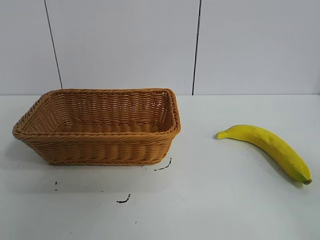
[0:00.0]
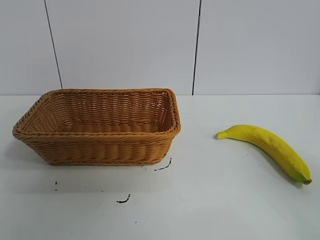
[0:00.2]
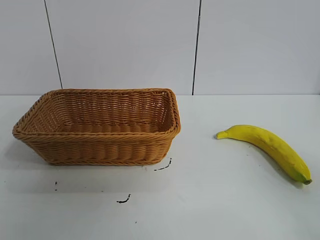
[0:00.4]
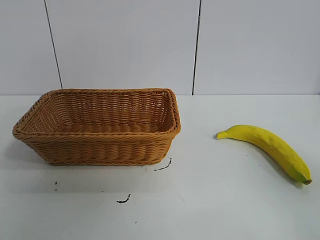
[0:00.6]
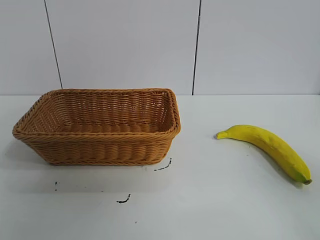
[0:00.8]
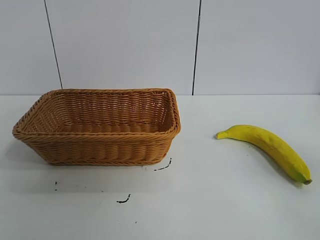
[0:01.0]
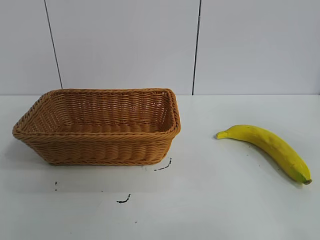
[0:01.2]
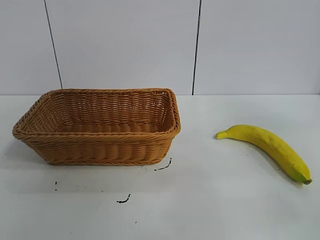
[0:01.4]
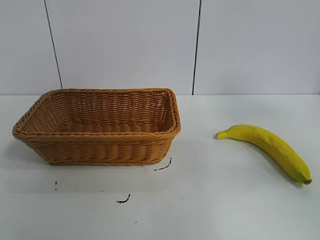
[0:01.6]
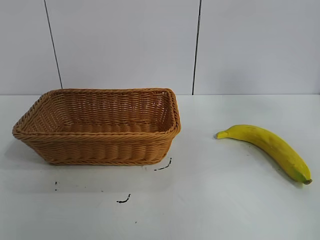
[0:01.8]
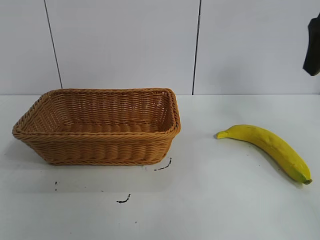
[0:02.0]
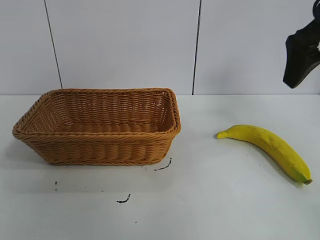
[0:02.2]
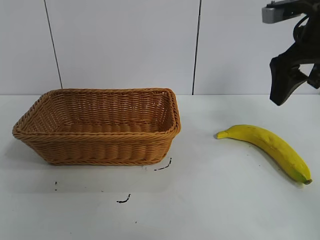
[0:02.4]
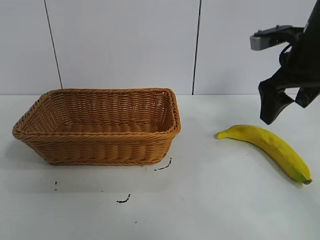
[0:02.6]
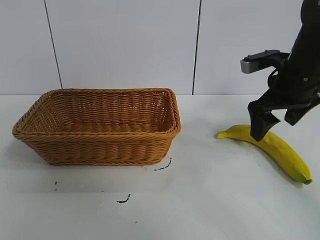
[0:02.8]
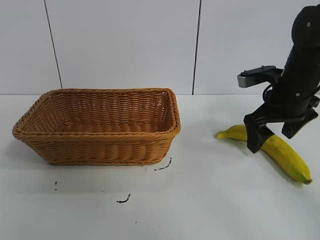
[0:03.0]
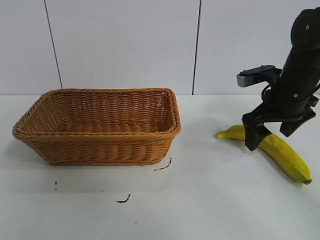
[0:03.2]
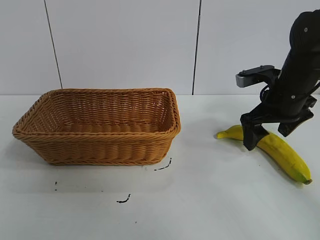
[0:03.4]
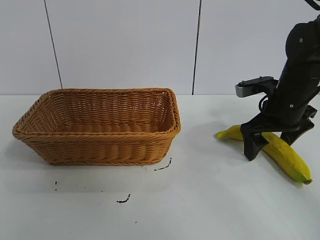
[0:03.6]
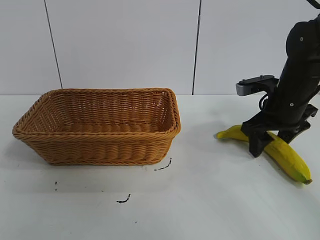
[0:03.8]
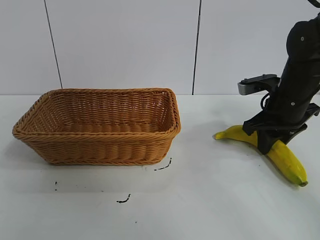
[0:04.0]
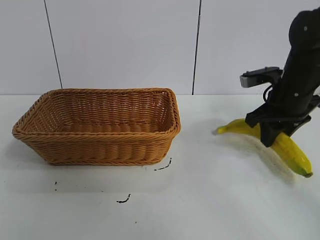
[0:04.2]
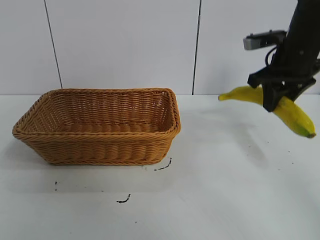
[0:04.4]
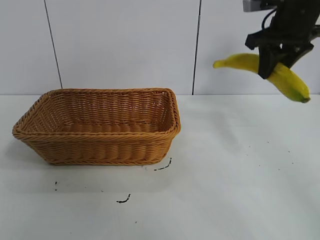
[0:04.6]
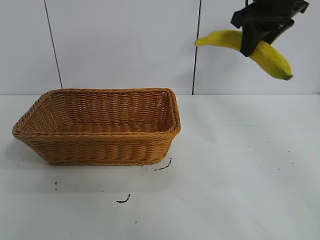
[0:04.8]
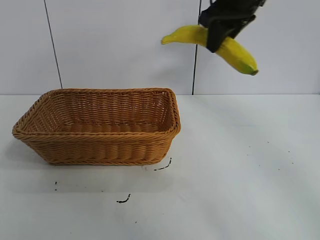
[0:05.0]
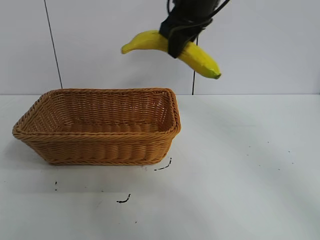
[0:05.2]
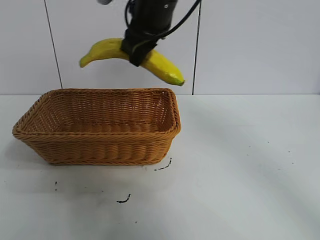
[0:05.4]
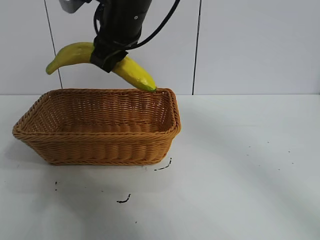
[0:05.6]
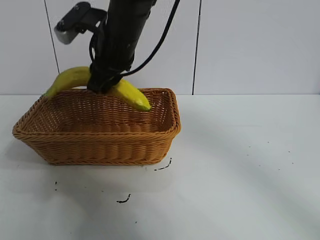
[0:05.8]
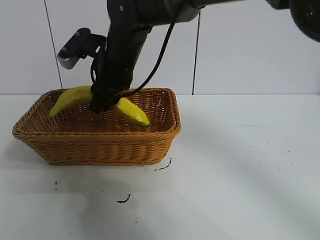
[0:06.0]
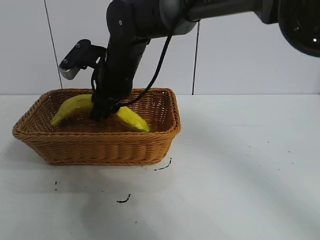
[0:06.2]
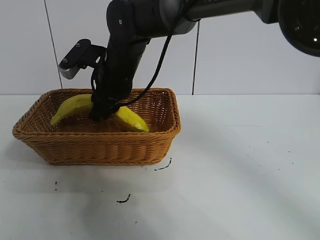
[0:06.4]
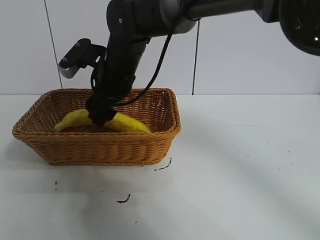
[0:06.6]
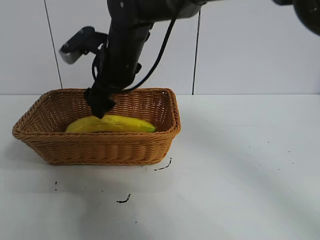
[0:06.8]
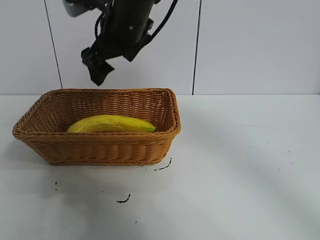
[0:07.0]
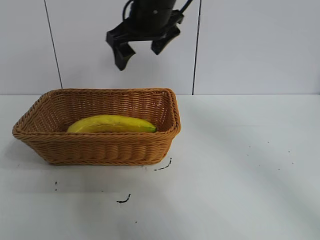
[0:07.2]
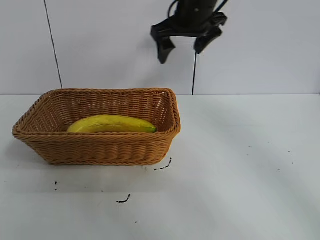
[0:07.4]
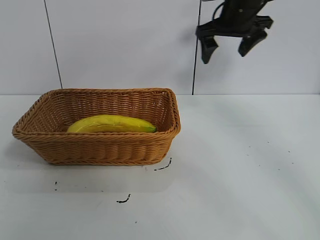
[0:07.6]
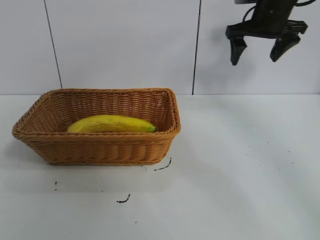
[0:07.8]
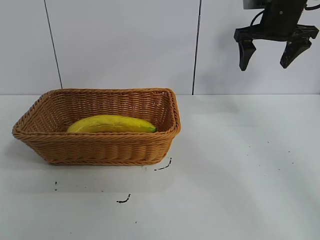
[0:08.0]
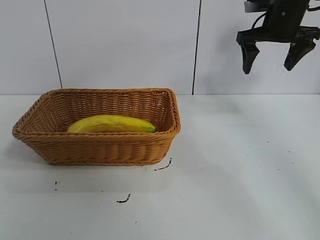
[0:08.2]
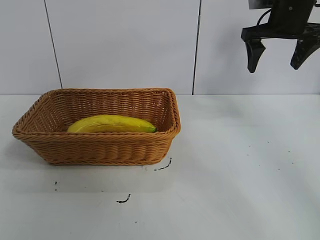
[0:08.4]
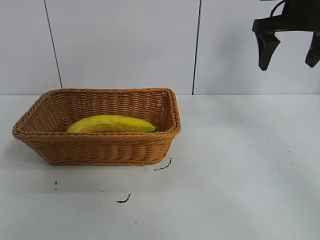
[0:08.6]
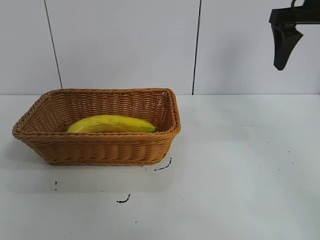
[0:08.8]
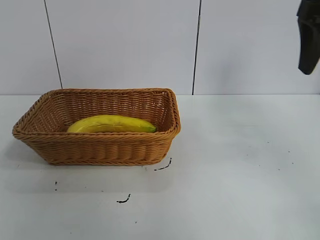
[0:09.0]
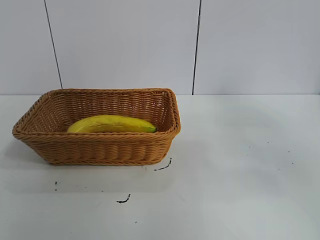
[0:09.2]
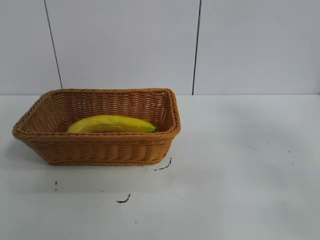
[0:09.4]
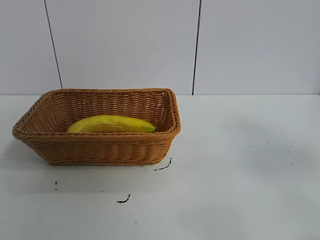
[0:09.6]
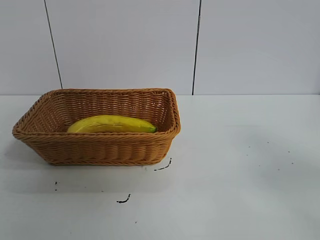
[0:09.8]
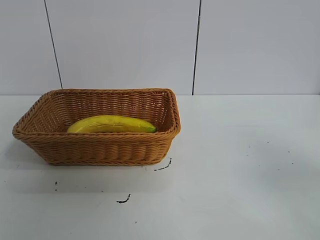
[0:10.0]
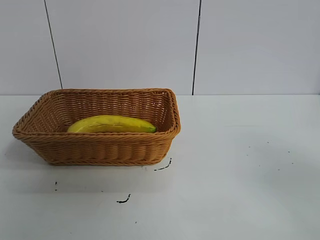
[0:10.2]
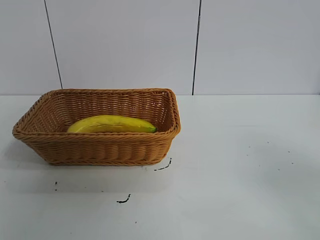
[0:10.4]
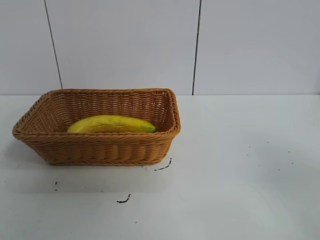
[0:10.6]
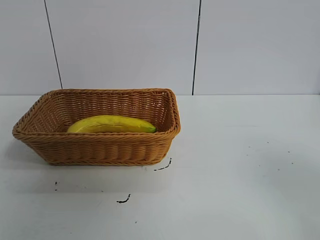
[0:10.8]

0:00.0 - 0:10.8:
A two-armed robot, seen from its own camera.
Task of the whole recording: pick up the banana and put it into the basket.
Step, 0:00.8 - 0:04.0: Grasp the banana with right gripper.
Step, 0:04.2 - 0:06.8: Place the banana in the basket with right gripper.
